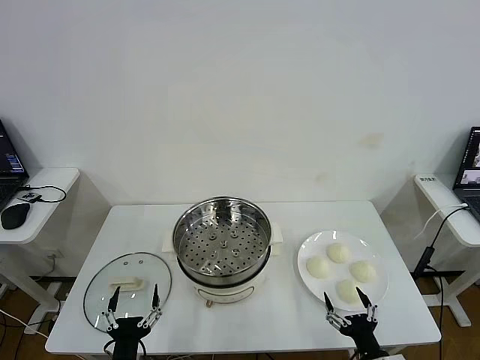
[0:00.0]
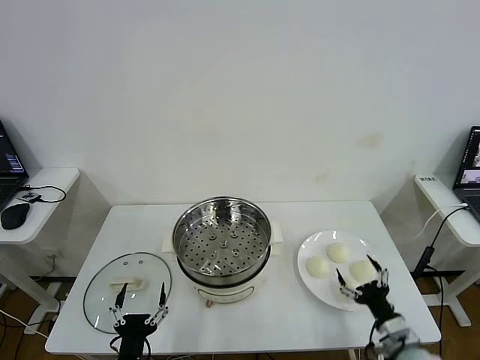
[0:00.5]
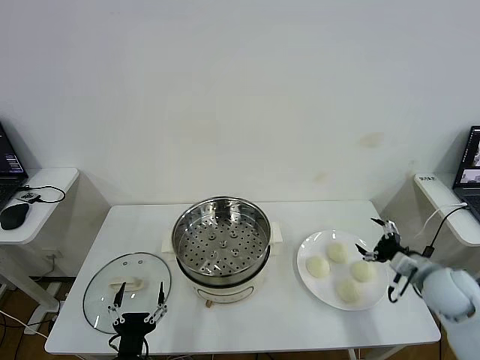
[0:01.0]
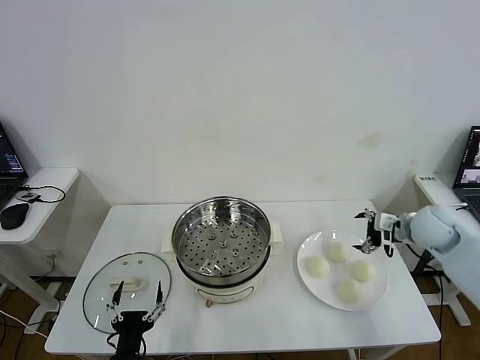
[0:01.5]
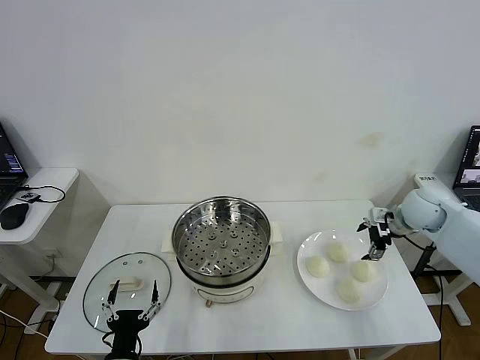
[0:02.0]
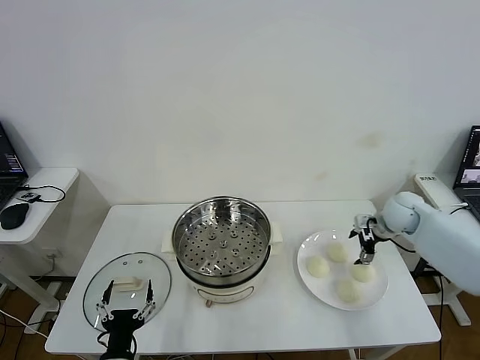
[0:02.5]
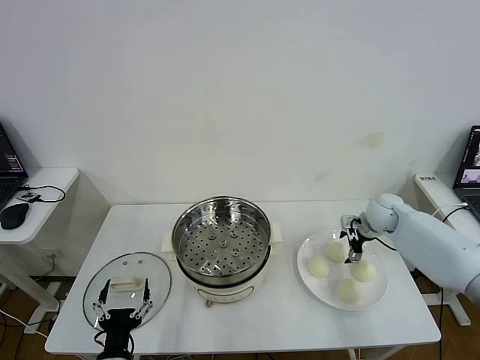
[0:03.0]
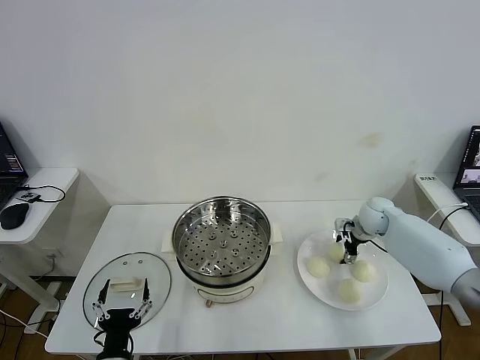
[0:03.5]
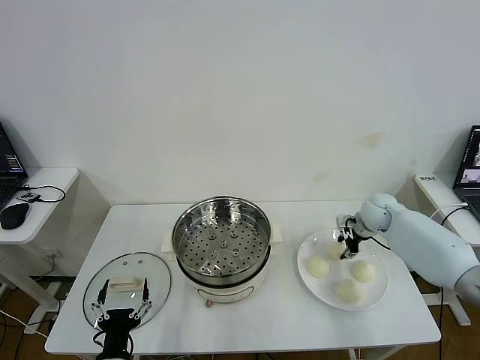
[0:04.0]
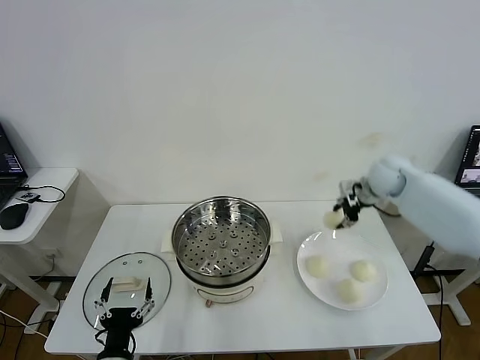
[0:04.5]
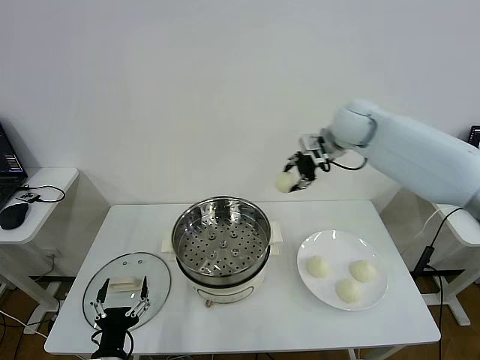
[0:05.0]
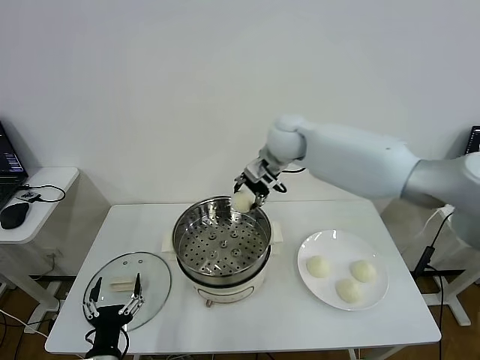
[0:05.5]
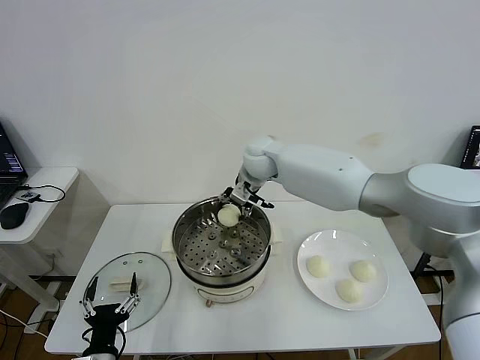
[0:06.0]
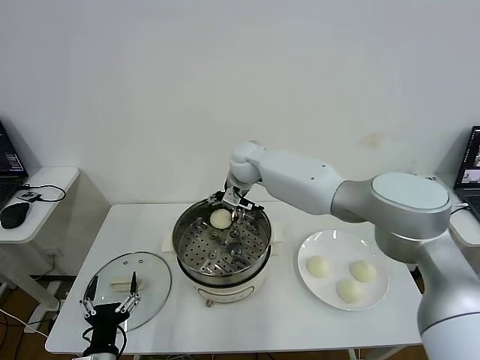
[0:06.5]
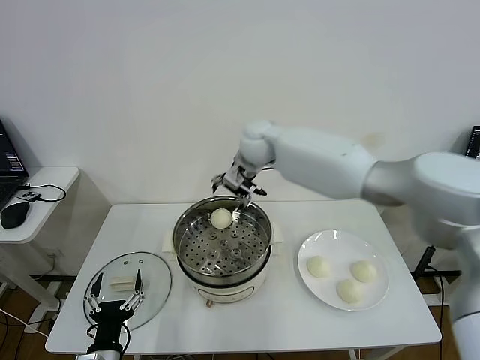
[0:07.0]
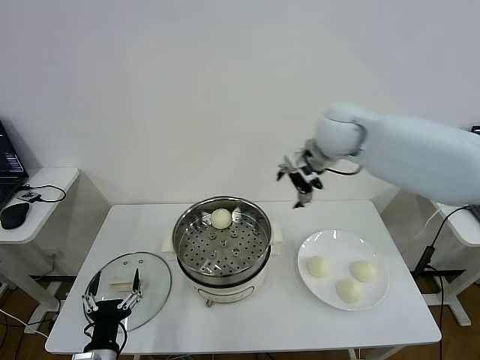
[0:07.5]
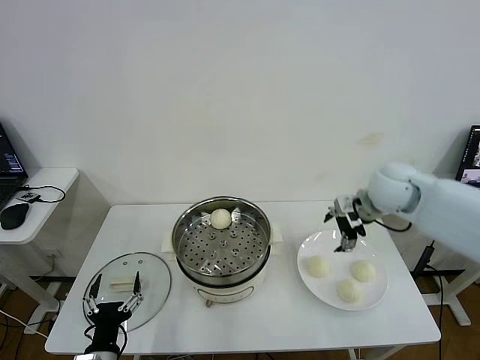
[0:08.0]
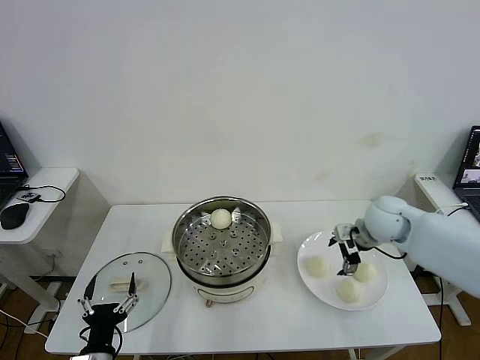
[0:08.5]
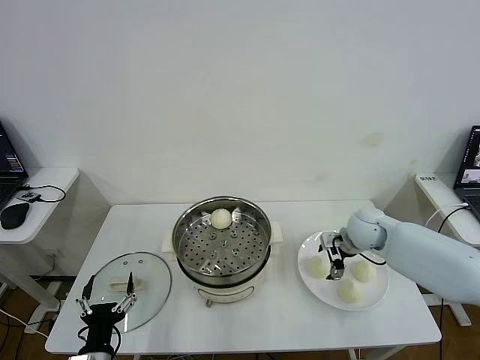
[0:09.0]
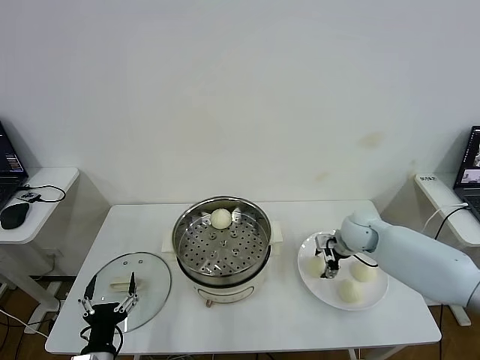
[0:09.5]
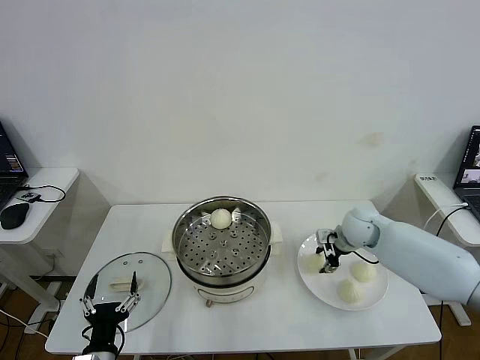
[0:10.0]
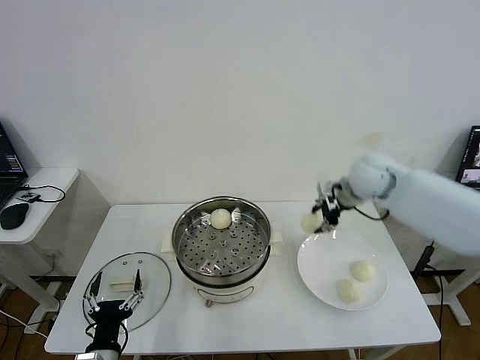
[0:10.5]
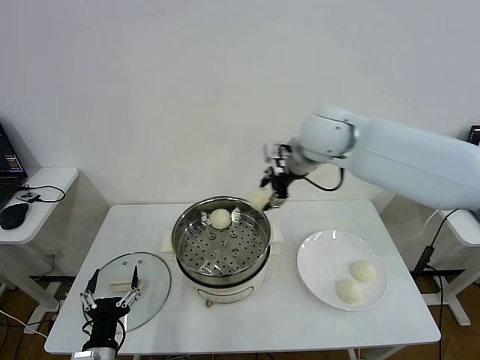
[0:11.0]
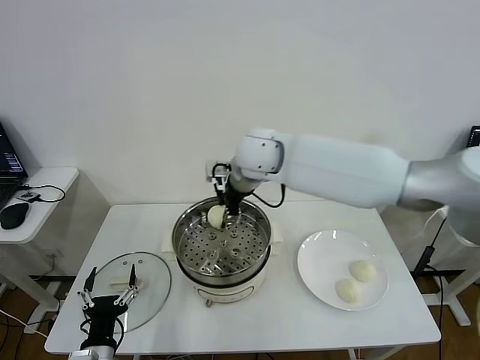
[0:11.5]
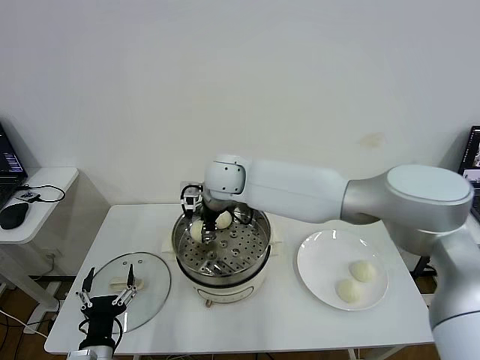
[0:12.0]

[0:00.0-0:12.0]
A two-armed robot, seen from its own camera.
Step, 0.0 to 3.5 s: Grasp the baozi in the plate with right gripper.
Step, 4.0 to 6.5 s: Place the baozi on the steamer with right gripper.
Step, 7.0 to 9.5 s: Grasp the baozi in the plate with right gripper.
2.0 to 4.0 s: The right gripper shifts approximately 10 cm downward and forward, and closes its fingers.
4.0 to 6.0 s: The right gripper heads to the left, covering about 35 cm.
6.0 to 8.0 s: The right gripper travels to the right and backward by roughly 30 cm, and opens.
8.0 to 10.0 s: The right gripper moves downward, about 10 cm, and closes its fingers.
10.0 to 12.0 s: The right gripper heads to the left, covering about 35 cm.

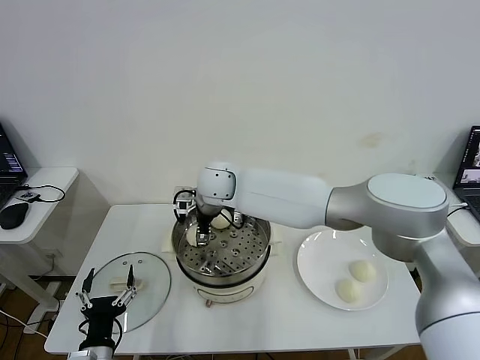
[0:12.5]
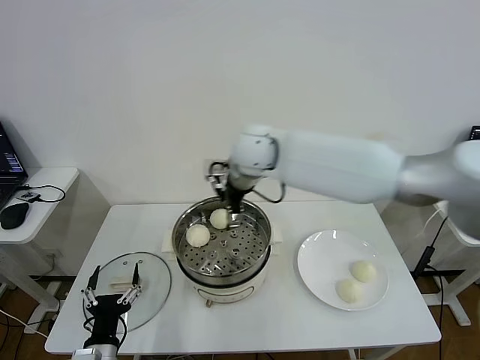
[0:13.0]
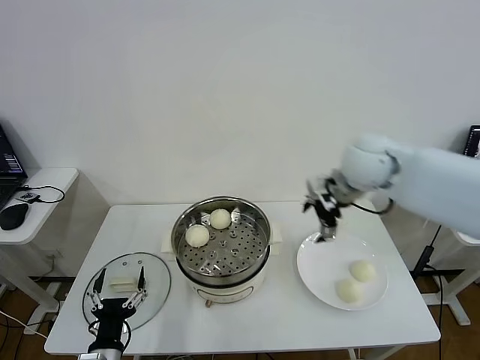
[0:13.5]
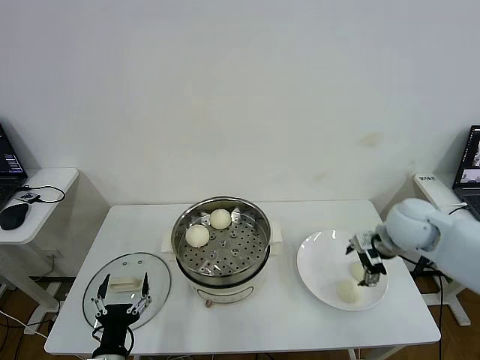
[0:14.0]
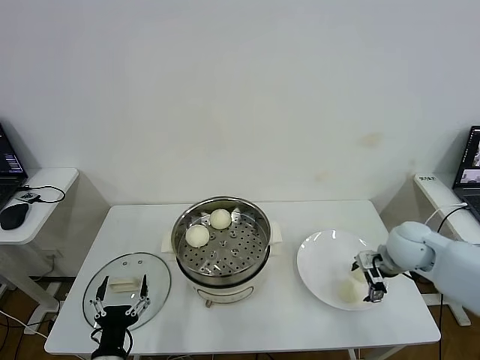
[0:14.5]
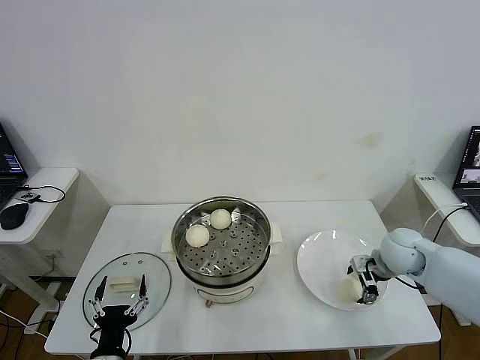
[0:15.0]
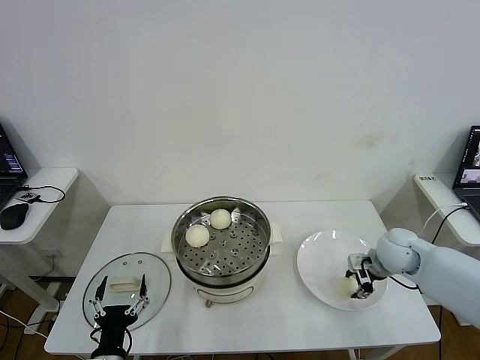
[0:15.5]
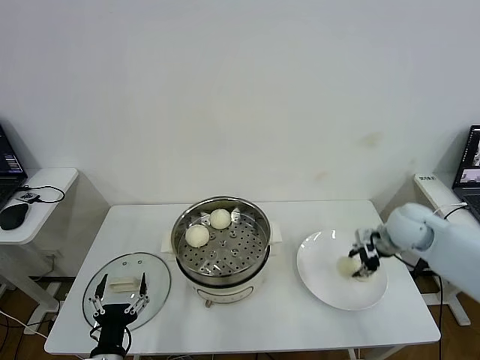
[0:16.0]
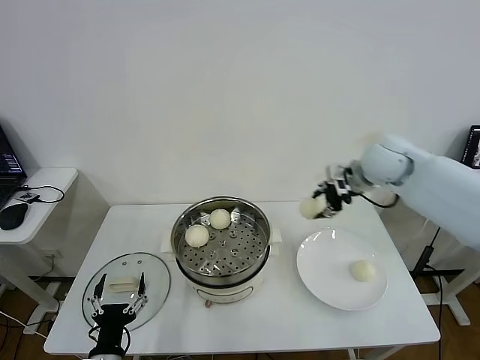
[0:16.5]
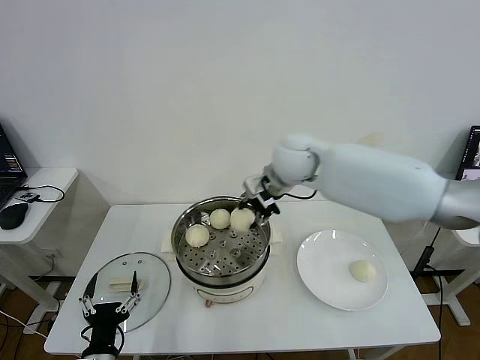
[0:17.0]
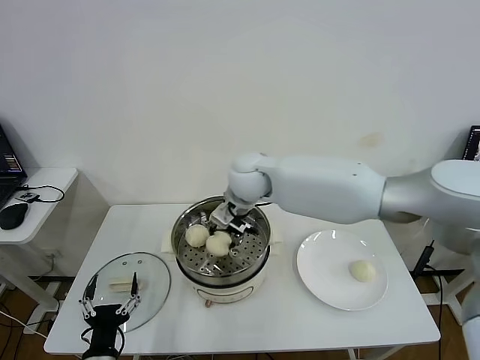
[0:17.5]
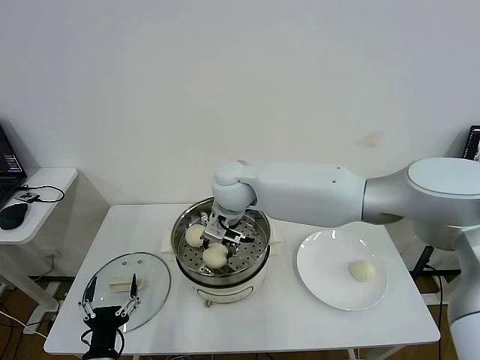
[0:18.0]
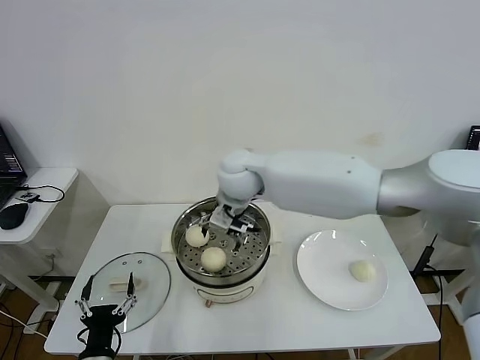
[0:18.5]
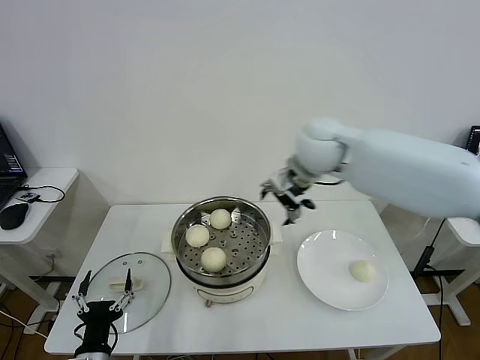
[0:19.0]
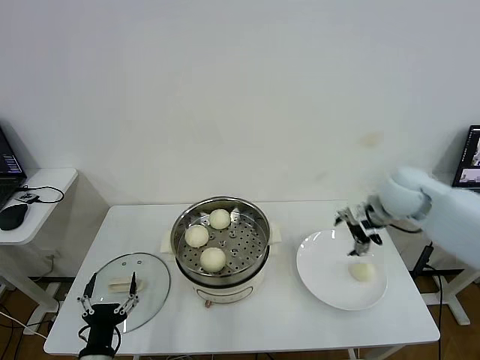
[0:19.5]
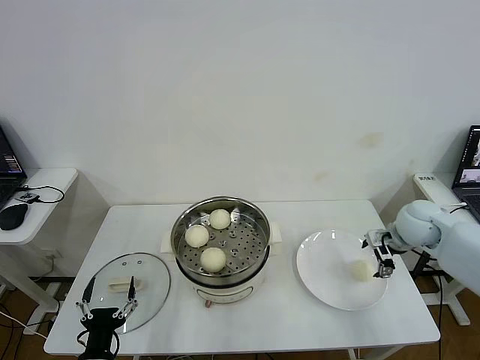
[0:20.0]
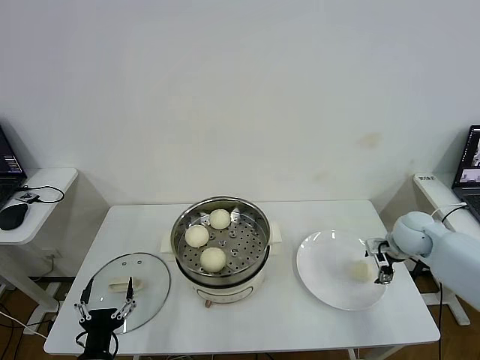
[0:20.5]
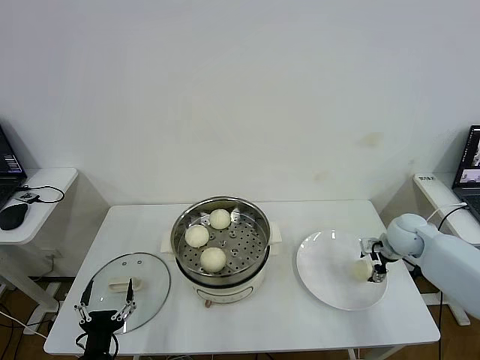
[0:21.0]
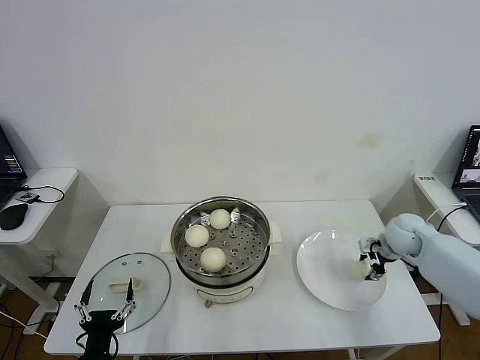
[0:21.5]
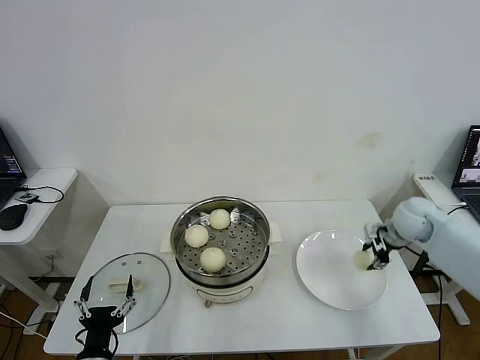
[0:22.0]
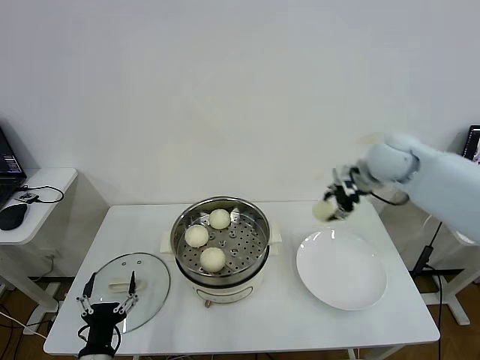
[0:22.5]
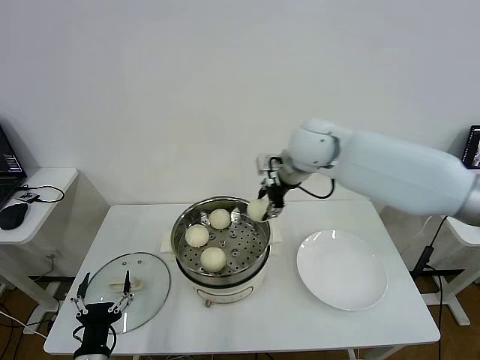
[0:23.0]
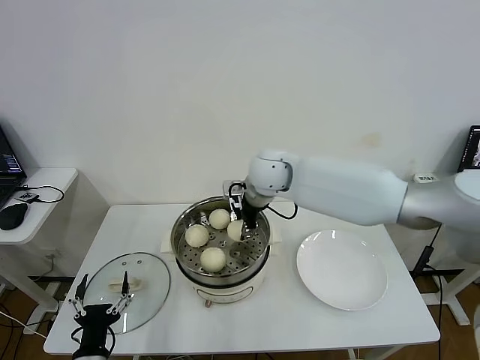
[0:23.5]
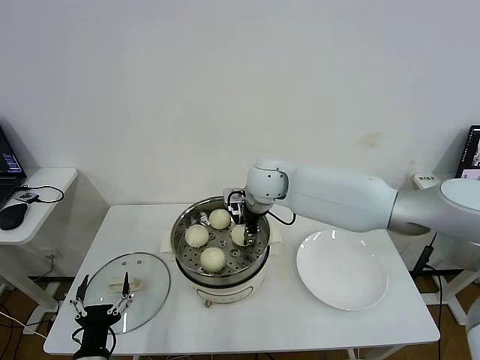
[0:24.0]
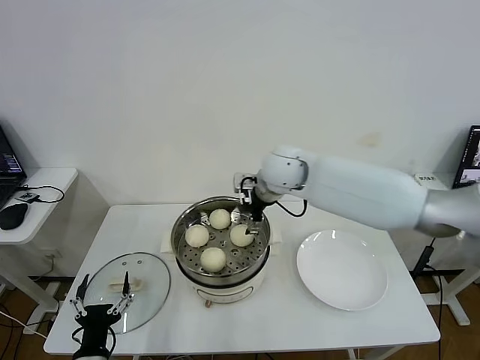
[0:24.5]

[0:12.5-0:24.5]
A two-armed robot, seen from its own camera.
Step, 13.0 to 15.5 s: Grasp the baozi in the plate with right gripper.
Step, 16.0 to 18.0 s: Place the baozi on the steamer with right gripper.
Step, 18.5 to 21.5 s: Grasp the baozi in the plate with right gripper.
Step, 22.0 to 24.0 s: Place the baozi on the steamer with right gripper.
12.5 to 14.5 s: The right gripper goes about 40 cm to the right.
14.5 to 16.5 s: The right gripper heads upward, to the left and forward, covering some 25 cm, and closes up.
16.5 to 18.5 s: The right gripper heads to the left, covering roughly 25 cm, and opens.
18.5 to 20.5 s: The right gripper goes roughly 40 cm to the right and downward.
20.5 to 22.5 s: The right gripper is displaced upward and to the left by about 20 cm, and closes.
22.5 to 24.5 s: The right gripper goes about 20 cm to the left, and opens its fingers.

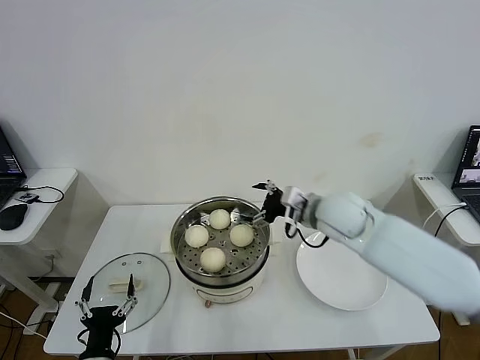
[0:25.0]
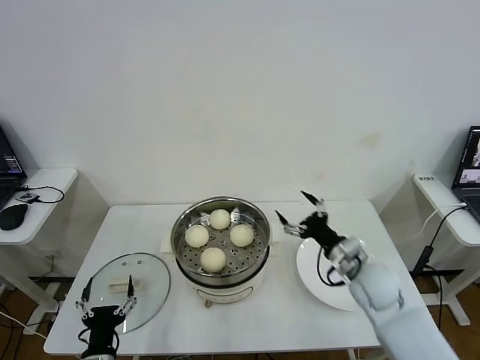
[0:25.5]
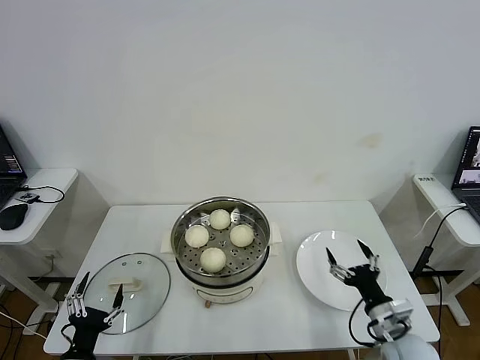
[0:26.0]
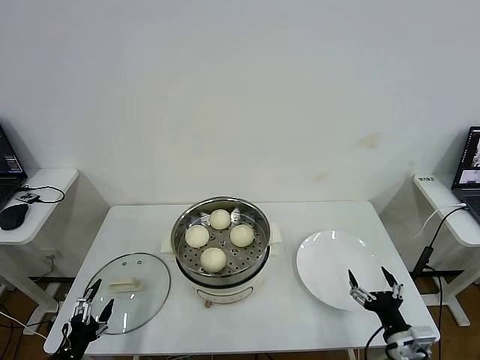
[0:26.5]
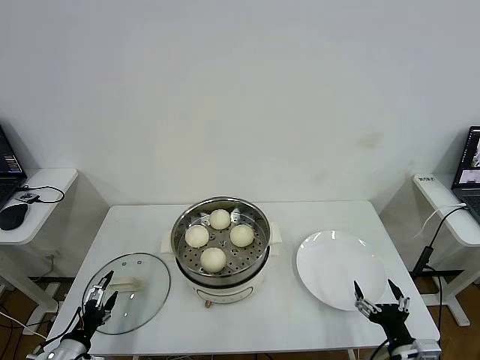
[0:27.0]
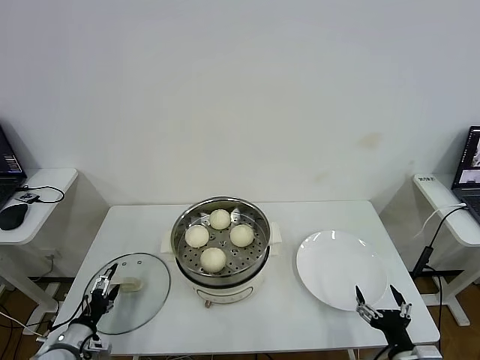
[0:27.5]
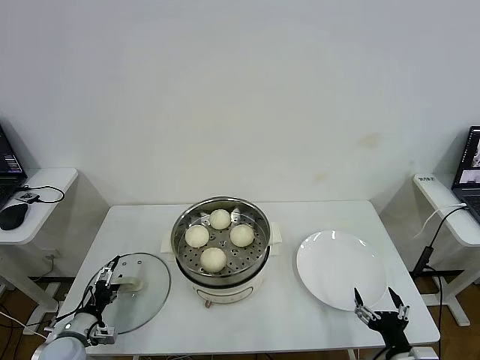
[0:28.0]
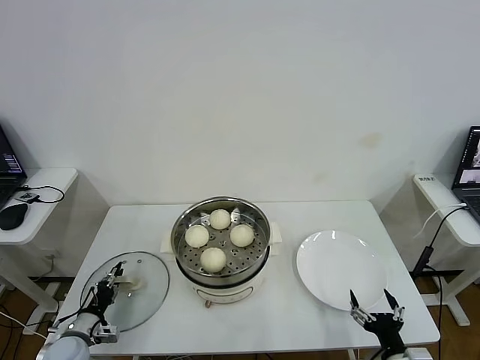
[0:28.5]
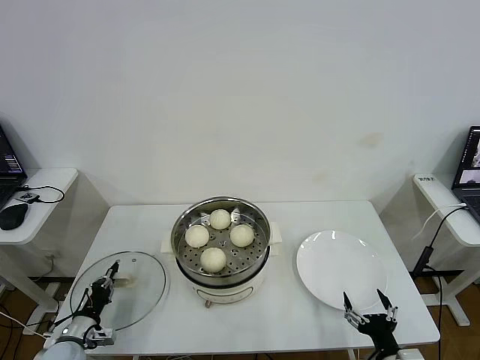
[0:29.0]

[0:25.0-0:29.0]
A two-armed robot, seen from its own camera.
Step, 25.0 to 28.5 s: Grasp the pot lid with left gripper.
25.0 to 27.0 s: The left gripper moves to the left, roughly 10 cm, while the right gripper goes roughly 40 cm backward, downward and to the right.
27.0 to 29.0 s: The left gripper travels forward by about 5 cm, and closes its fingers.
